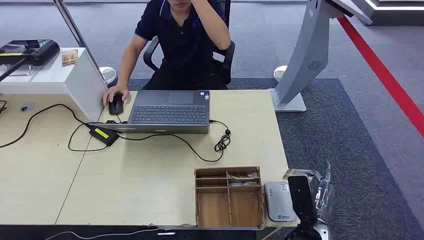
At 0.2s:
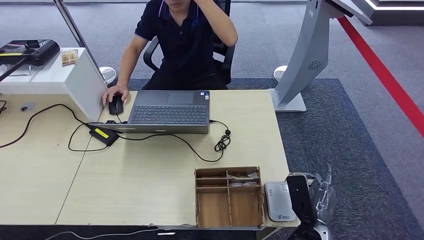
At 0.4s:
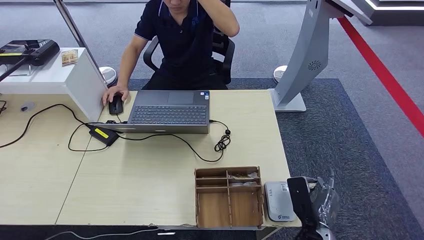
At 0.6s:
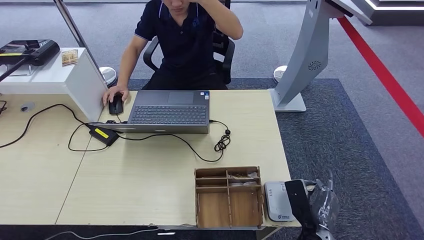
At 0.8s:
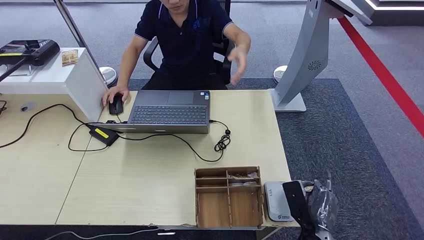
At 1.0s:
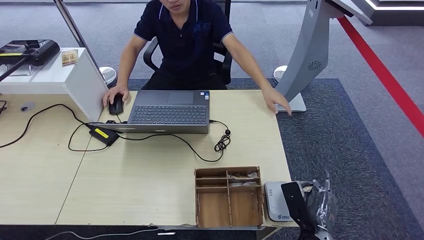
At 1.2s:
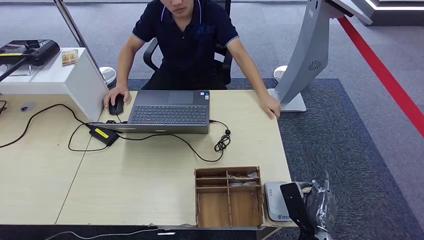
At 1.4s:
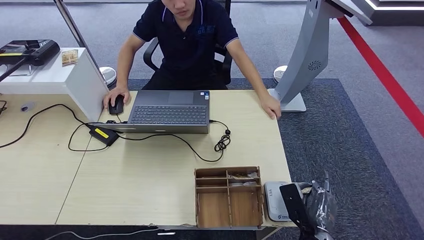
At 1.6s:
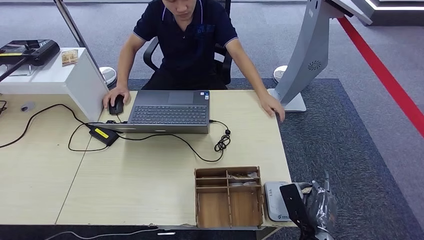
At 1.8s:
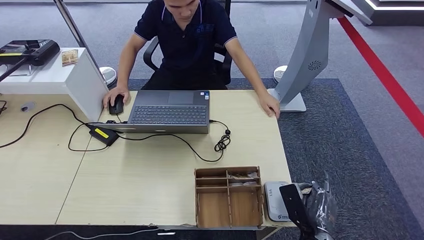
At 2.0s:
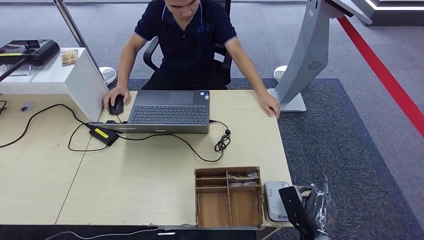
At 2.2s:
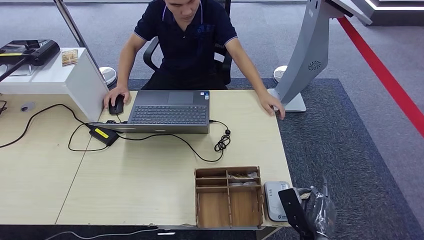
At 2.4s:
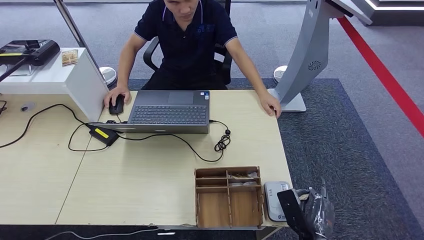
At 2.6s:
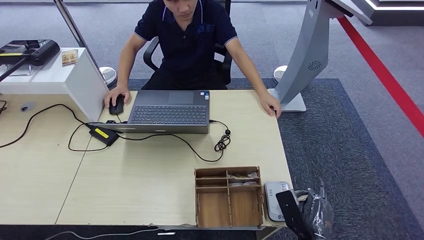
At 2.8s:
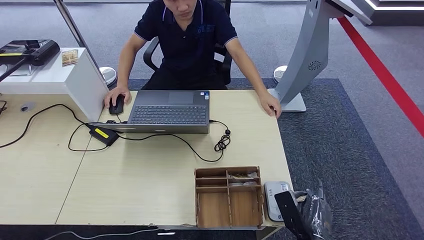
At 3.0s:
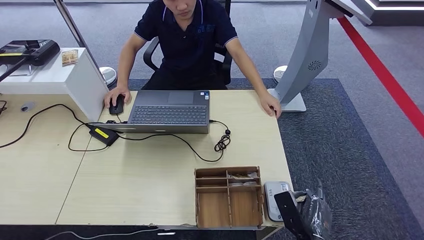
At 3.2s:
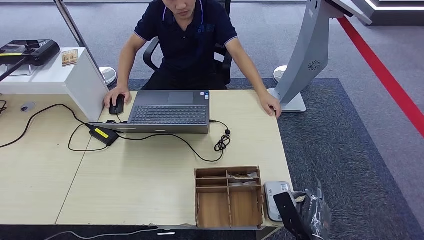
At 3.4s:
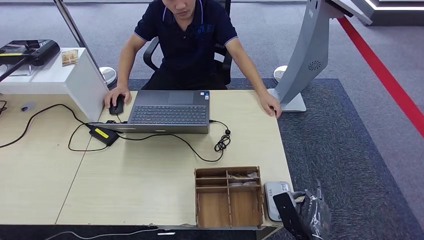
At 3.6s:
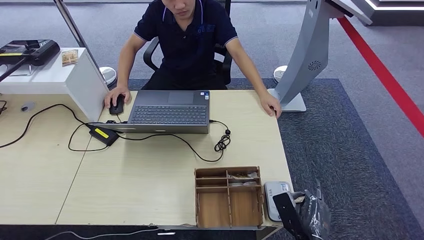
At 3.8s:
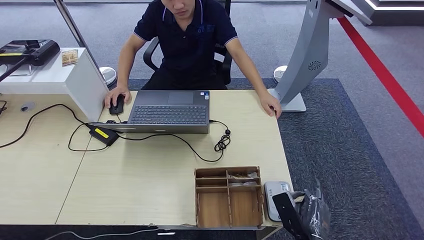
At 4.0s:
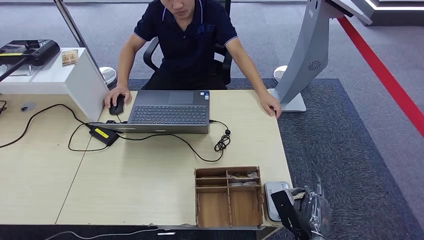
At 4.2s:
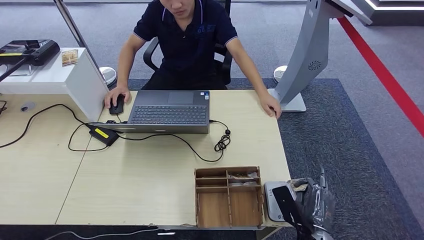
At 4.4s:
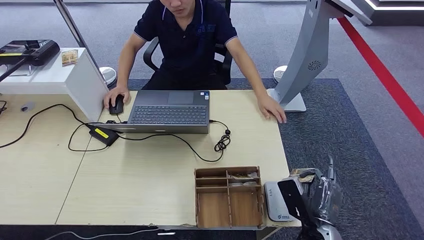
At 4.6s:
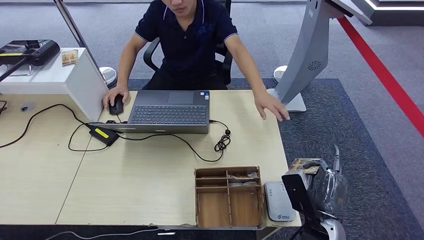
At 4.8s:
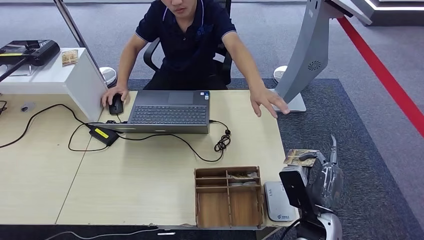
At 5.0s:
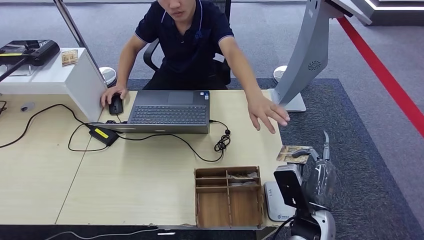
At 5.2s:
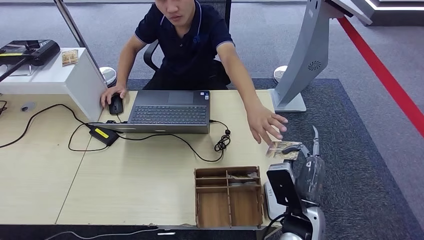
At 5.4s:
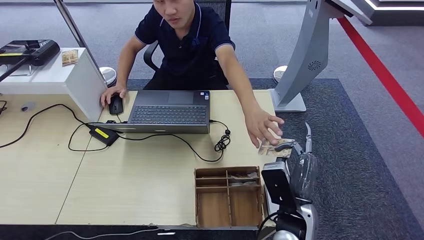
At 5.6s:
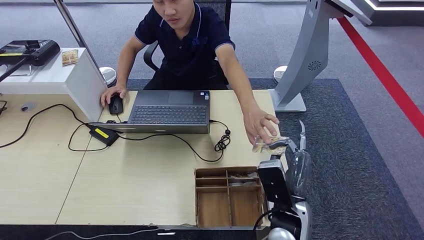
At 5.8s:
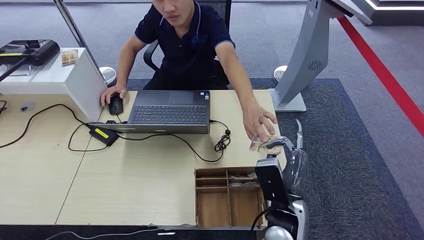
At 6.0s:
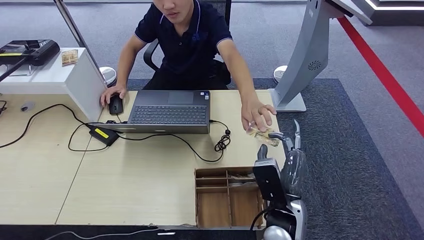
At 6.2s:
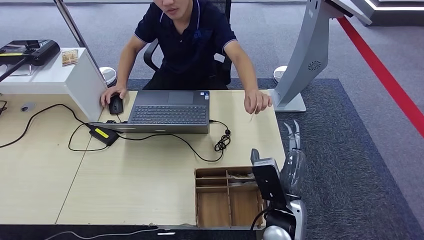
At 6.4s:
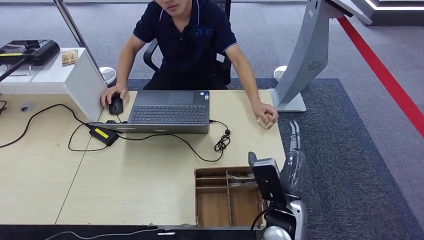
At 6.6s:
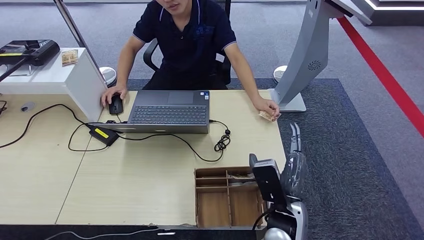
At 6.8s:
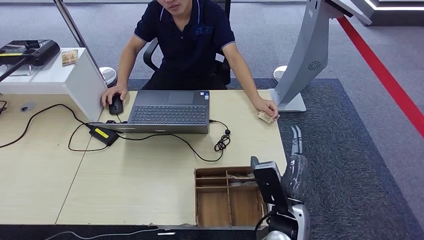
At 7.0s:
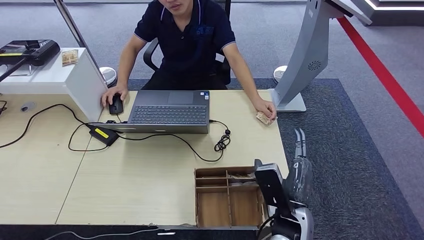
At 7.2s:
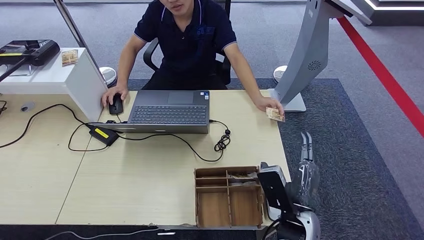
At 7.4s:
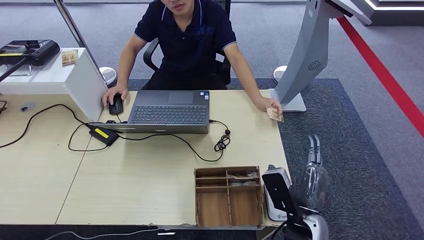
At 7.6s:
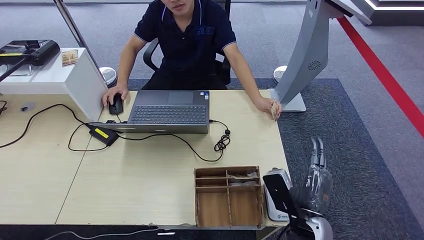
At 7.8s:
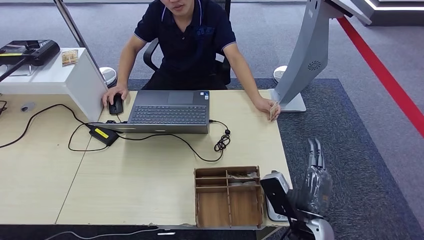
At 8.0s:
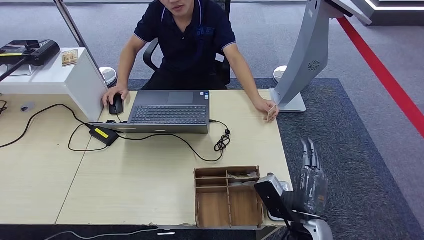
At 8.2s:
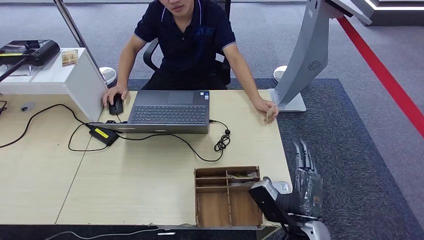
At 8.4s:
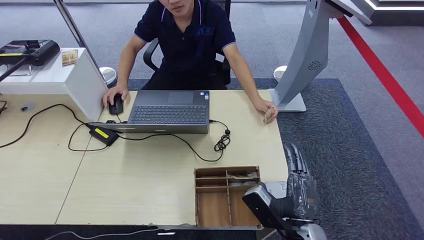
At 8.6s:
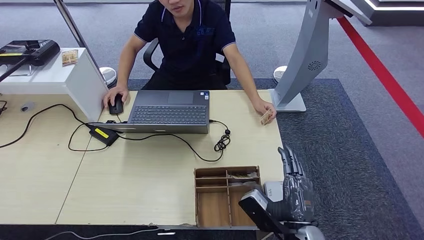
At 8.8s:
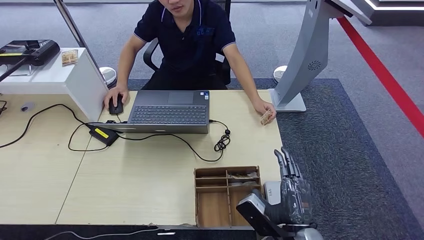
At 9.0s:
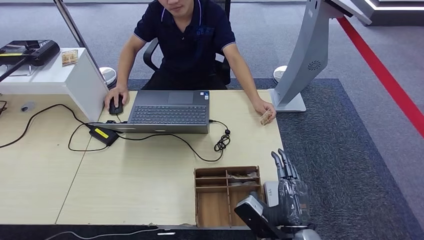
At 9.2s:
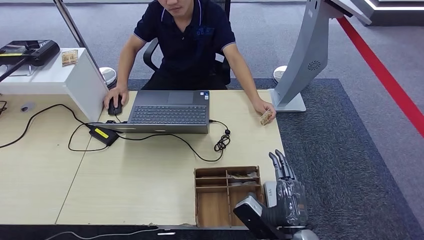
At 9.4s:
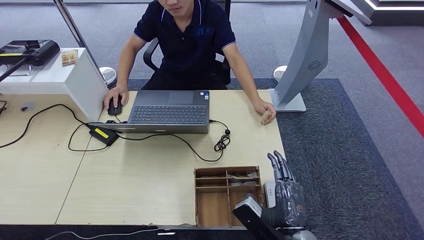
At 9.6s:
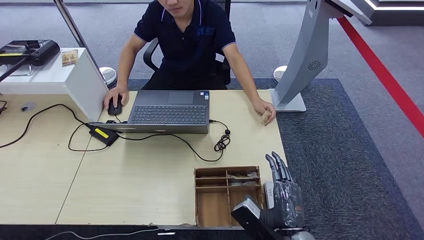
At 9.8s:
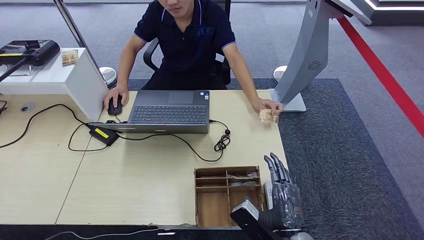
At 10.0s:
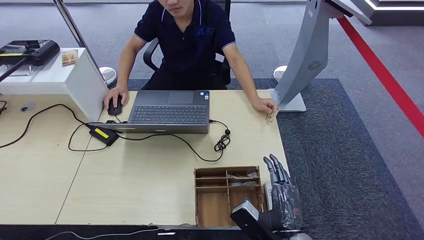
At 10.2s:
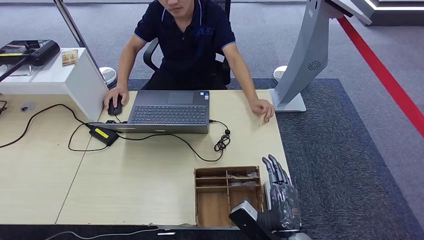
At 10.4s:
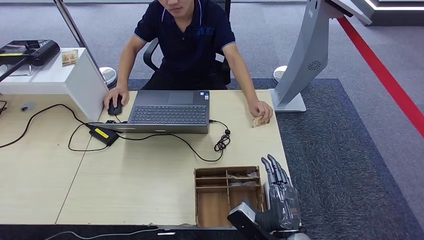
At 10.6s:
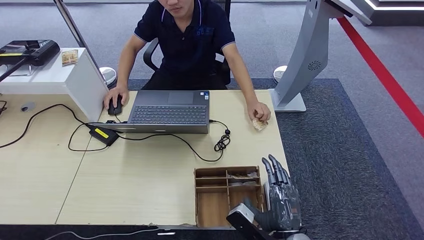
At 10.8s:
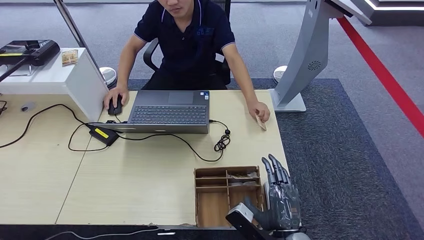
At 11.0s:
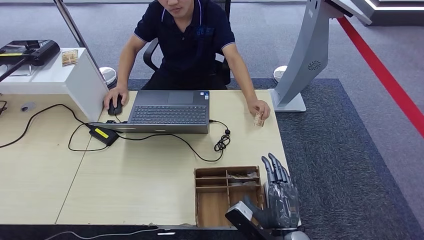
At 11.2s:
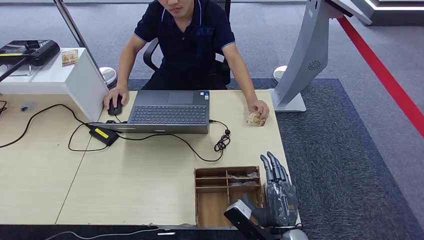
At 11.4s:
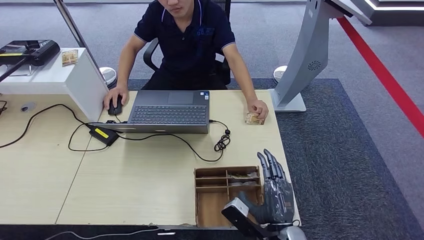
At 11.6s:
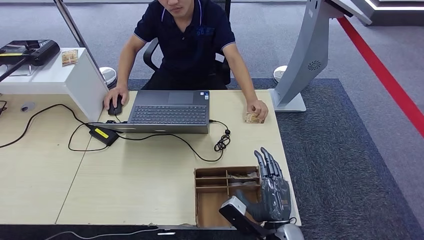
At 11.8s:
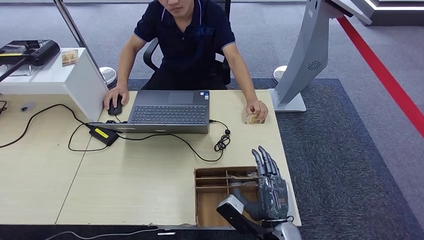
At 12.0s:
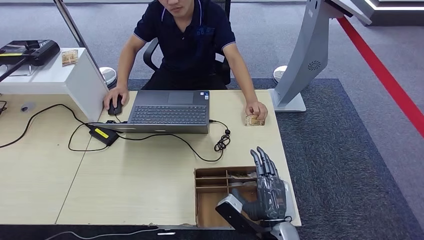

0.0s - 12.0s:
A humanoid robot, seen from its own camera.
Step, 0.0s - 1.4s: Take the ID card from the person's hand.
Step, 1.6s - 5.4s: Place the ID card on the card reader.
Step, 5.8s - 9.8s: Hand the ID card to the person.
1.6s - 3.0s: There are only small adjustments of the hands.
3.0s - 4.4s: The right hand moves about 5 cm.
4.4s - 6.0s: The right hand travels to the left and upward by about 10 cm.
6.0s - 7.6s: The right hand heads to the right, covering approximately 5 cm.
9.0s - 12.0s: The hands make only small movements.

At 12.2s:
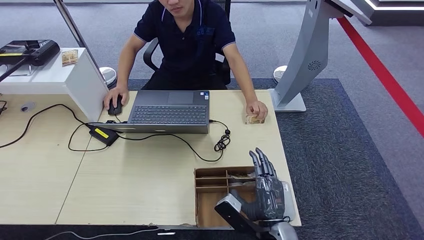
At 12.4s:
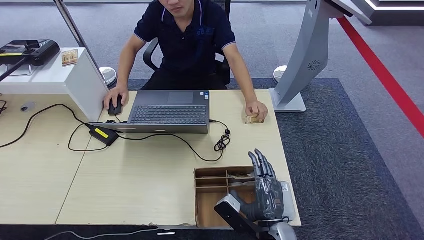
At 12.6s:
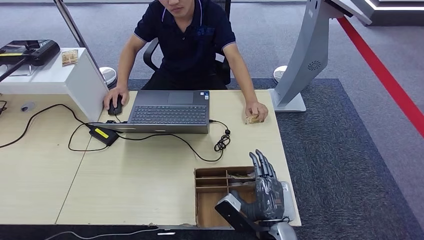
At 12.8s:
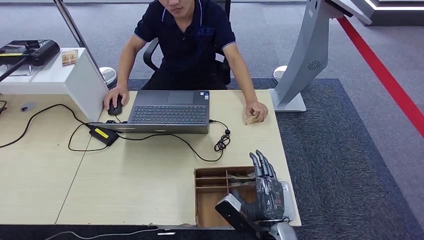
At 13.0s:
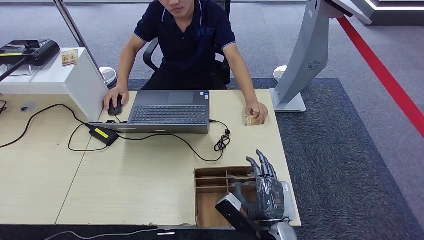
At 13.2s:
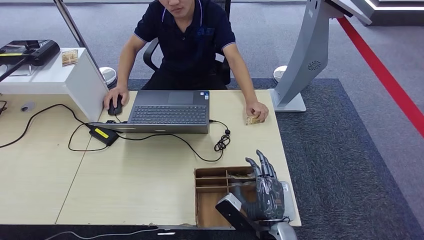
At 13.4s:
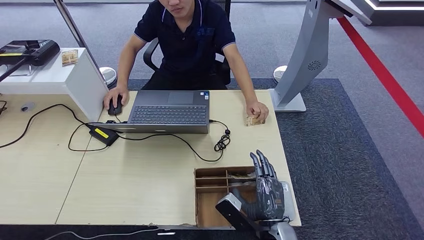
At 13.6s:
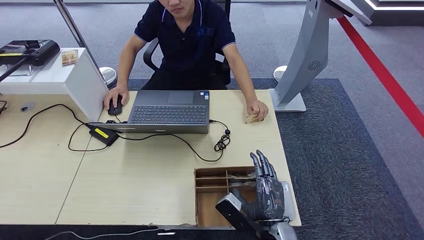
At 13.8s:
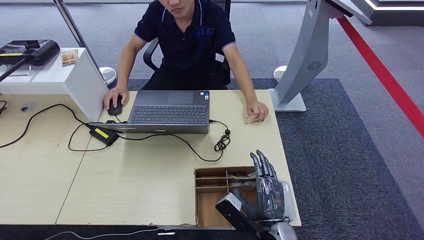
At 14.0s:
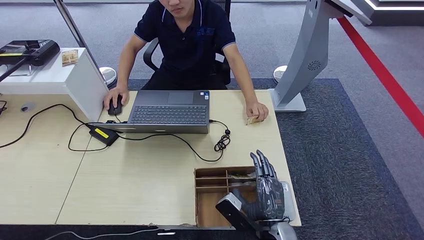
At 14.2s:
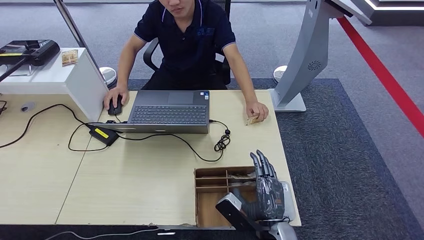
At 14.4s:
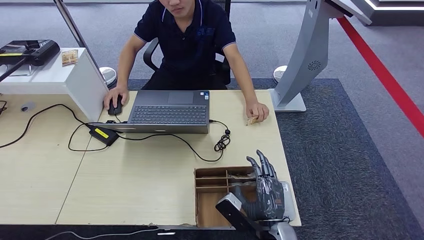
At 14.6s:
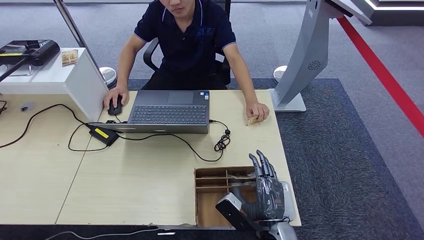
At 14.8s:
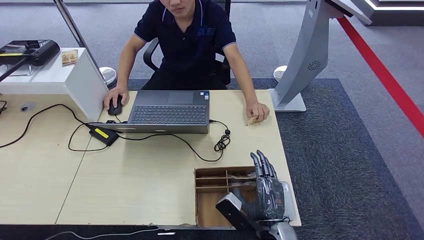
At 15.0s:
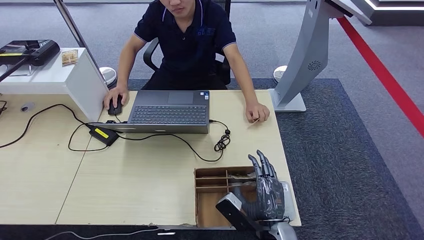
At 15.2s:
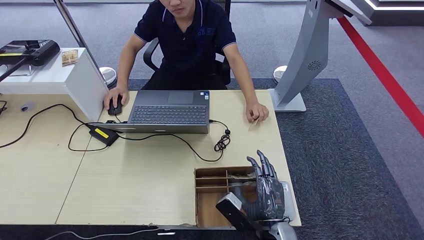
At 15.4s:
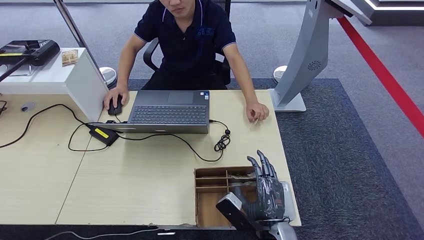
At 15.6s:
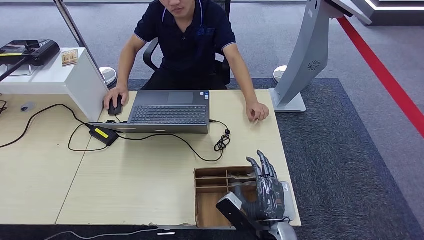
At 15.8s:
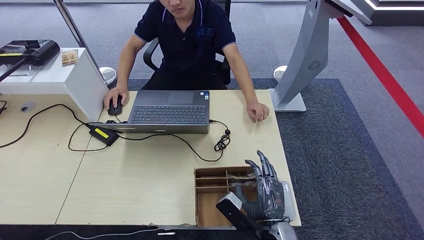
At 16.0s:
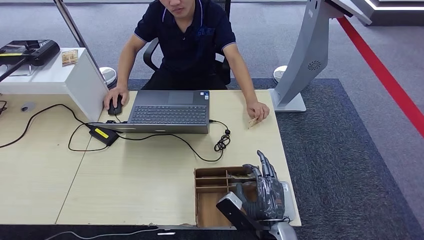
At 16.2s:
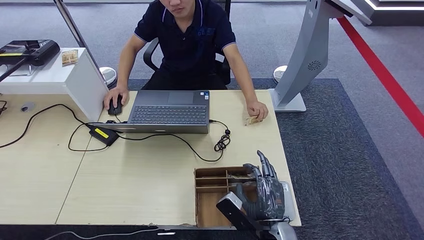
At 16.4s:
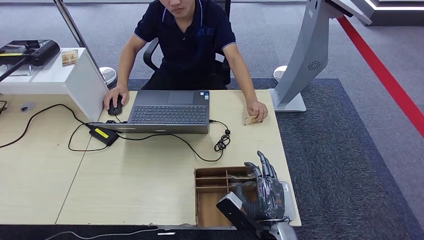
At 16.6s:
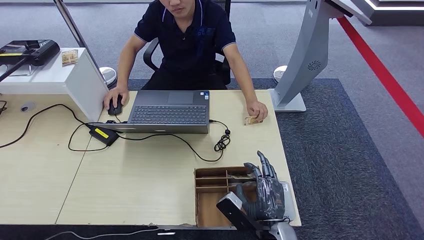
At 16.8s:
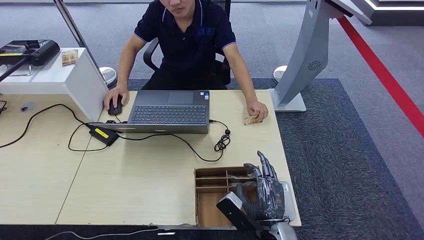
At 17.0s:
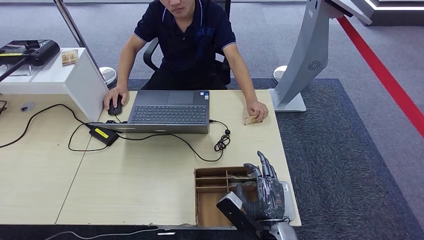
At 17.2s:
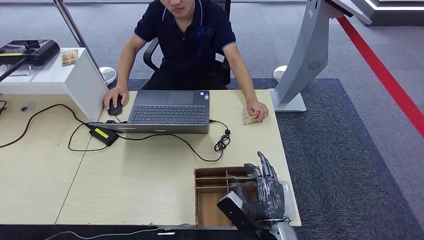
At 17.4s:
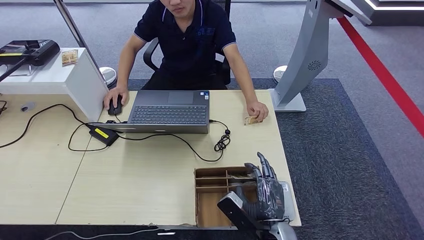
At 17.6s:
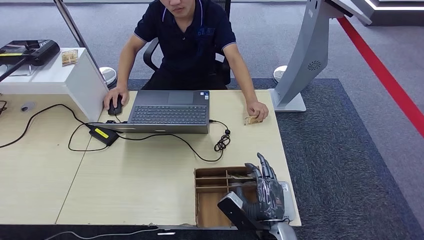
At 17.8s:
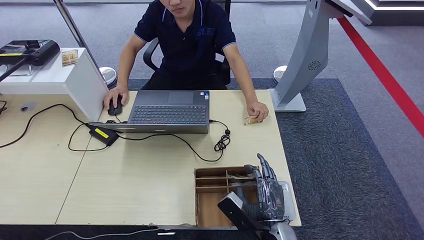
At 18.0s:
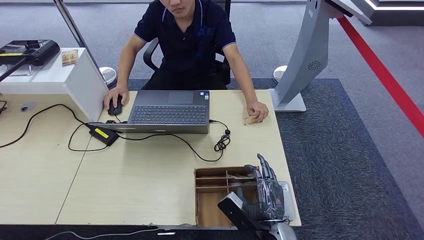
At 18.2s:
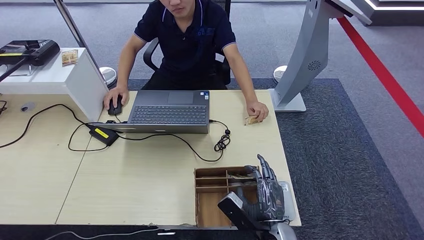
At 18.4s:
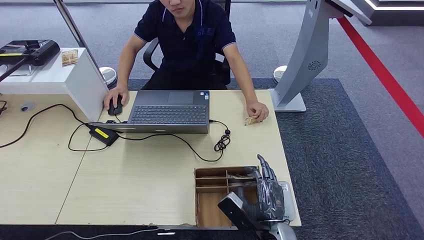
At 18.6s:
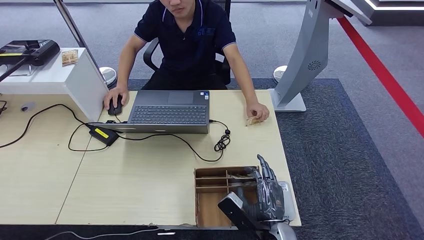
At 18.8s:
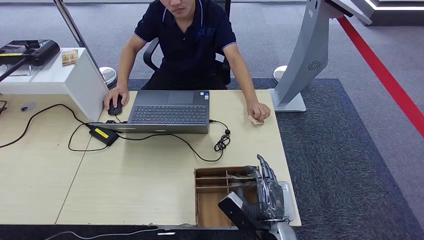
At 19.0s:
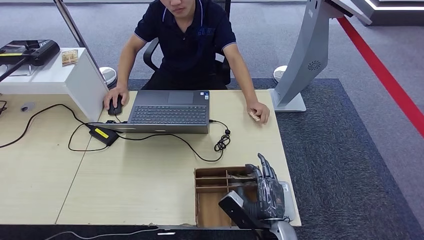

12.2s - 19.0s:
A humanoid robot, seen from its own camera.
12.2s - 16.2s: Both hands stay put.
16.2s - 17.6s: Both hands stay about where they are.
17.6s - 19.0s: Both hands stay about where they are.
